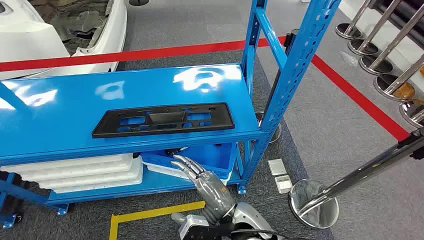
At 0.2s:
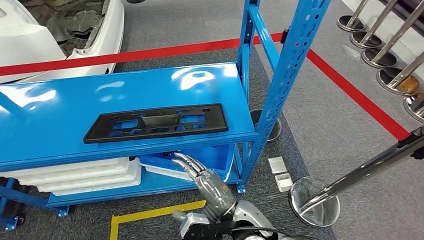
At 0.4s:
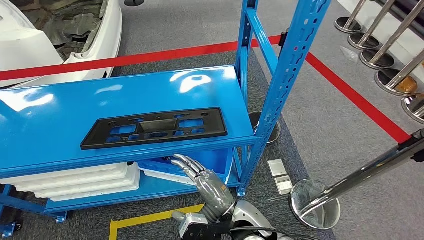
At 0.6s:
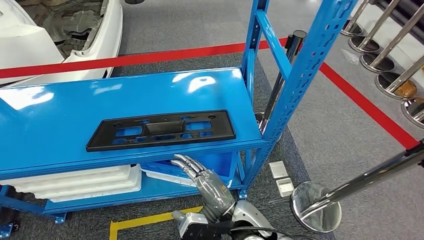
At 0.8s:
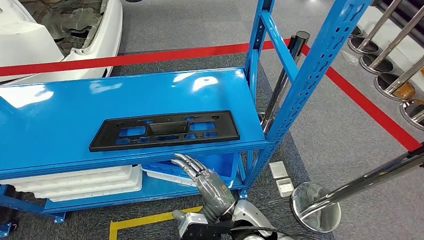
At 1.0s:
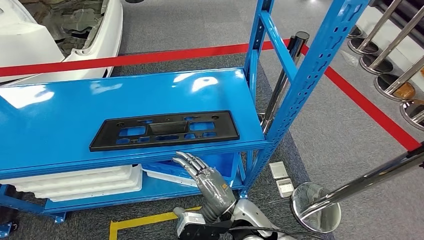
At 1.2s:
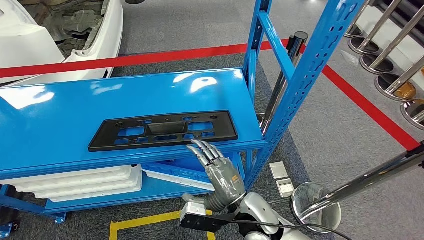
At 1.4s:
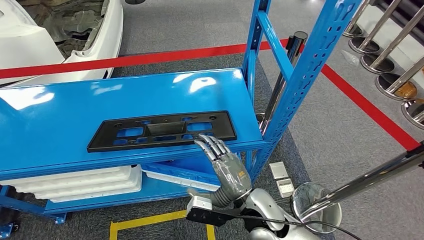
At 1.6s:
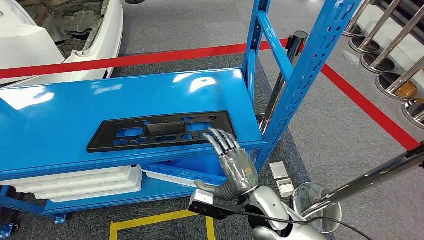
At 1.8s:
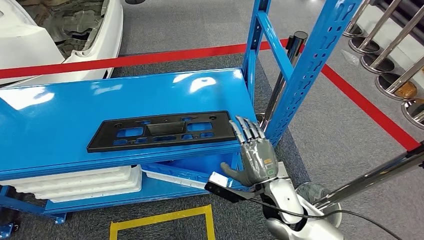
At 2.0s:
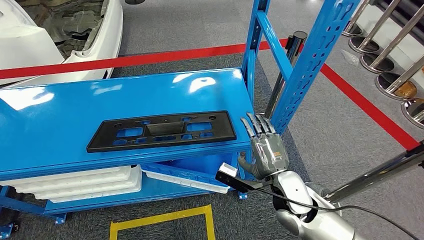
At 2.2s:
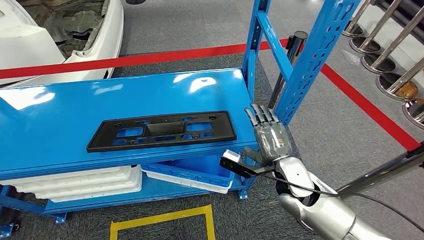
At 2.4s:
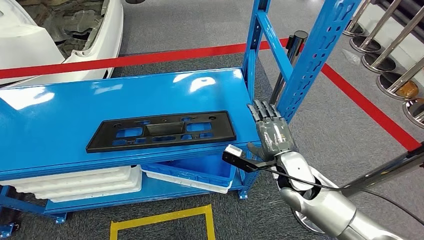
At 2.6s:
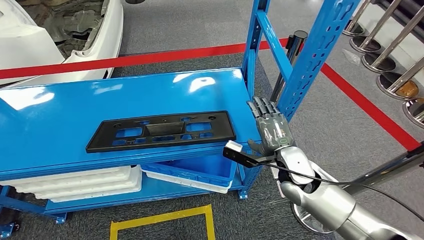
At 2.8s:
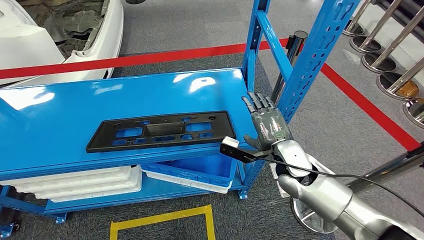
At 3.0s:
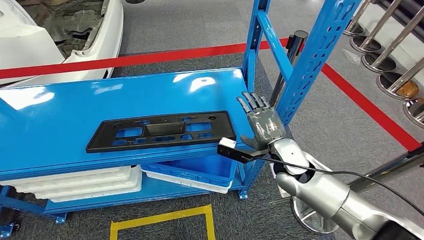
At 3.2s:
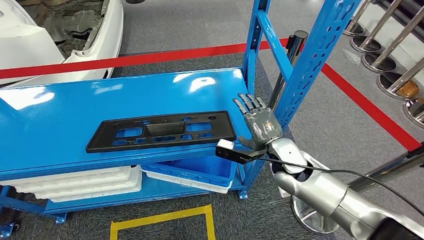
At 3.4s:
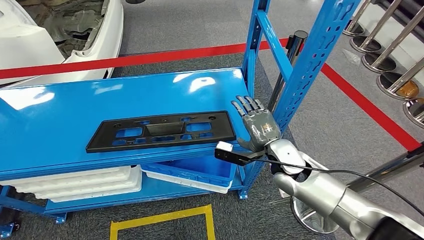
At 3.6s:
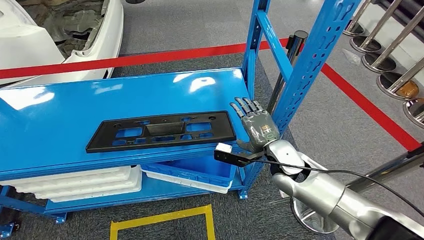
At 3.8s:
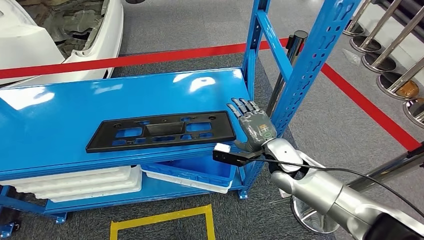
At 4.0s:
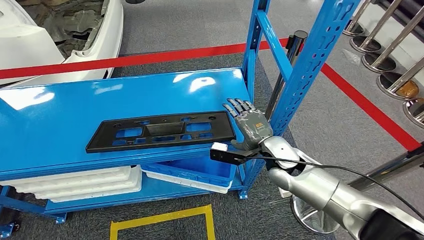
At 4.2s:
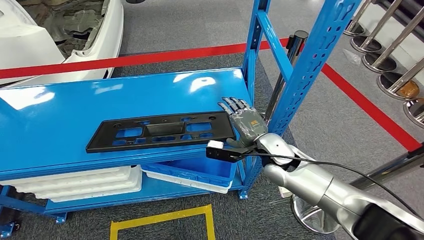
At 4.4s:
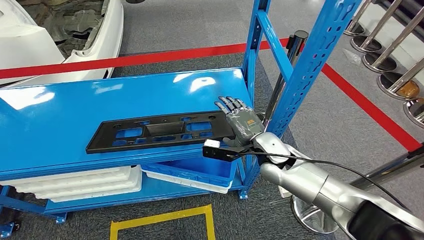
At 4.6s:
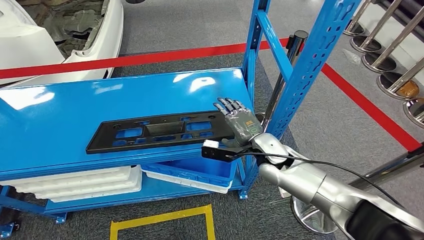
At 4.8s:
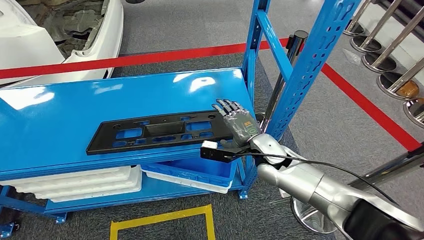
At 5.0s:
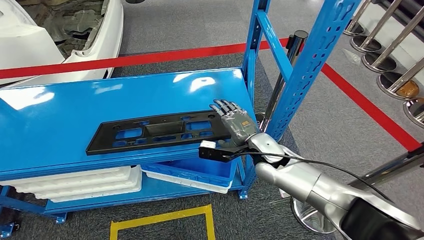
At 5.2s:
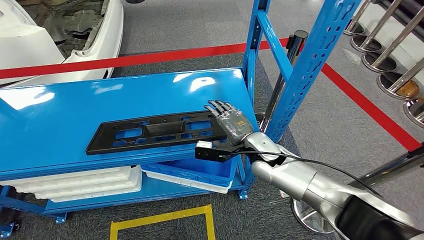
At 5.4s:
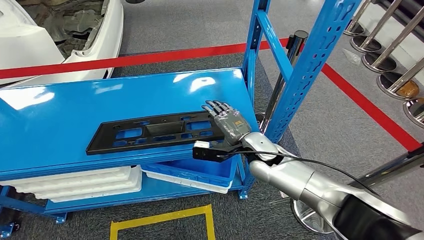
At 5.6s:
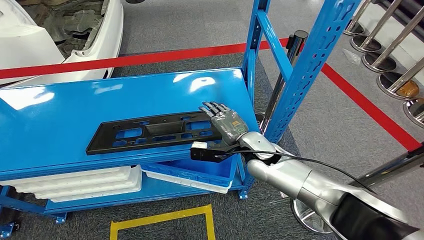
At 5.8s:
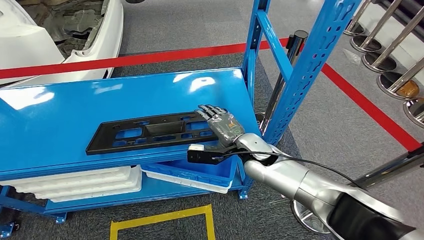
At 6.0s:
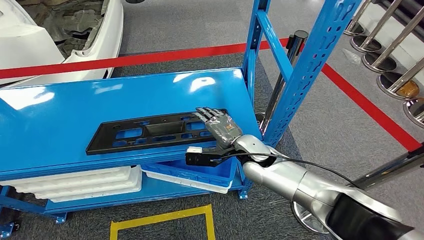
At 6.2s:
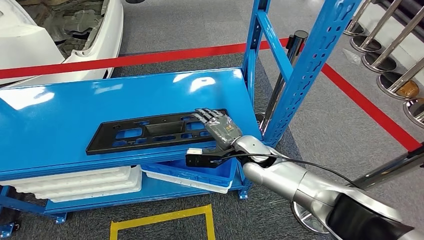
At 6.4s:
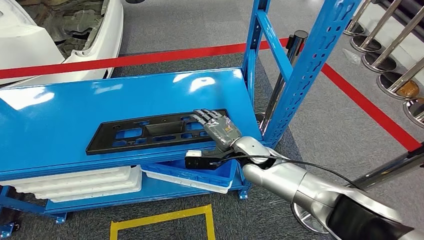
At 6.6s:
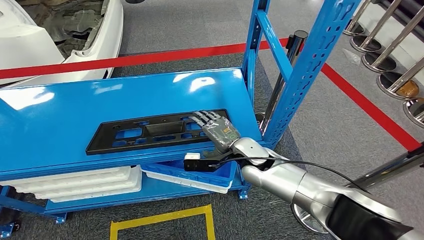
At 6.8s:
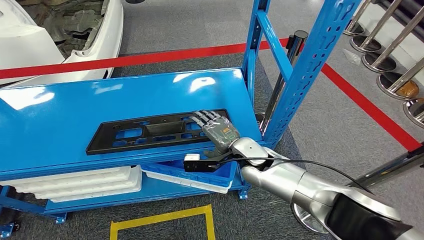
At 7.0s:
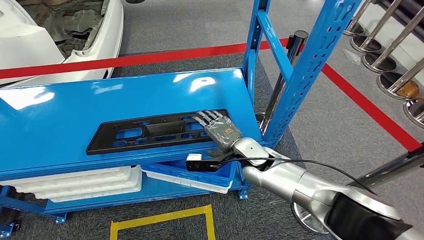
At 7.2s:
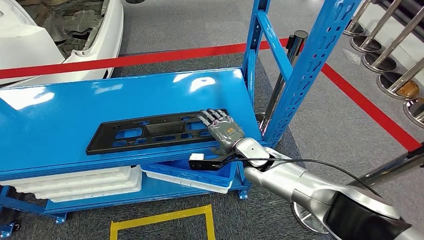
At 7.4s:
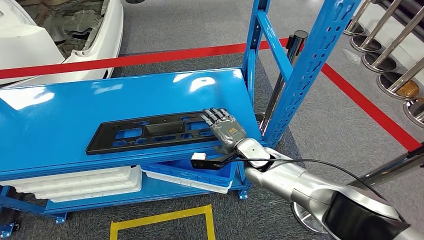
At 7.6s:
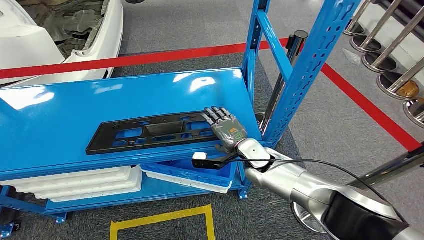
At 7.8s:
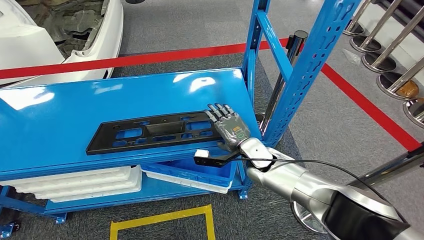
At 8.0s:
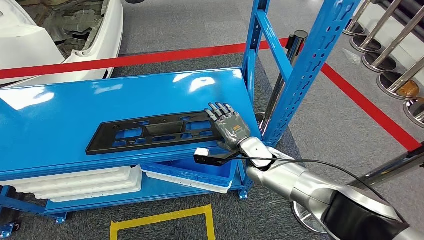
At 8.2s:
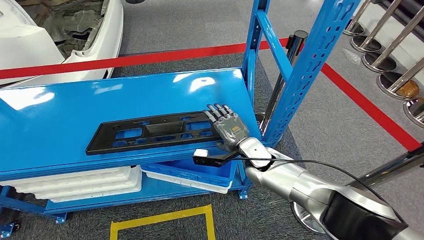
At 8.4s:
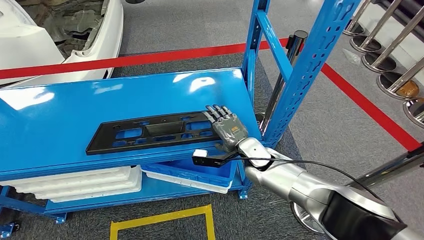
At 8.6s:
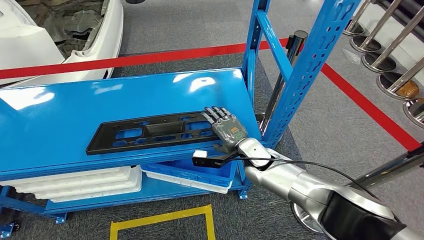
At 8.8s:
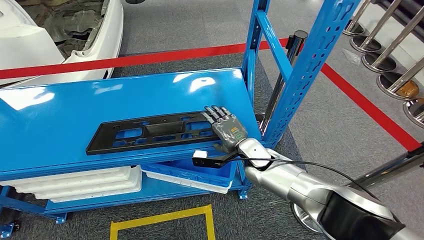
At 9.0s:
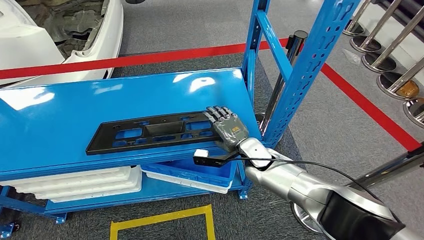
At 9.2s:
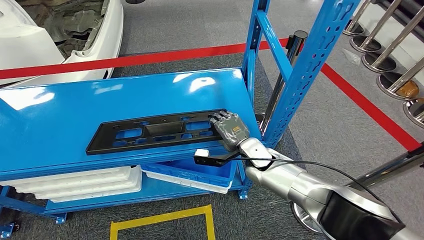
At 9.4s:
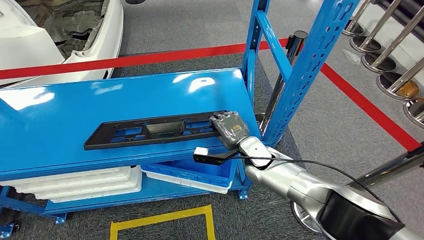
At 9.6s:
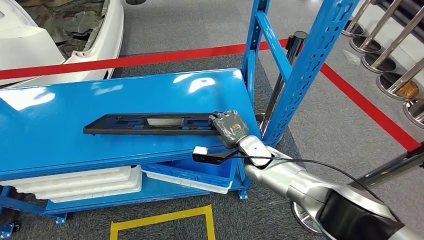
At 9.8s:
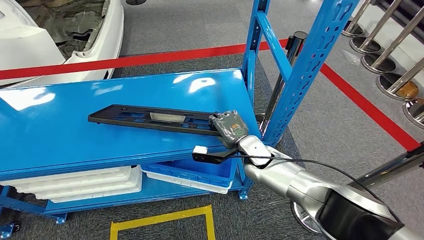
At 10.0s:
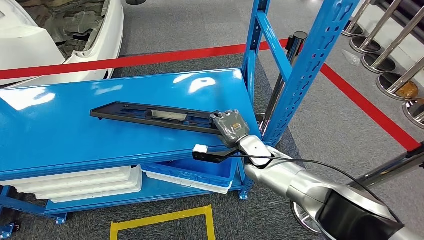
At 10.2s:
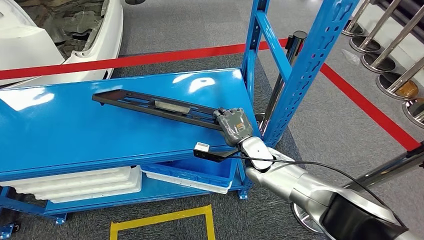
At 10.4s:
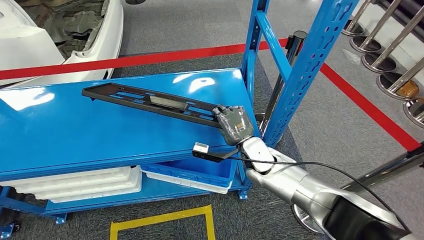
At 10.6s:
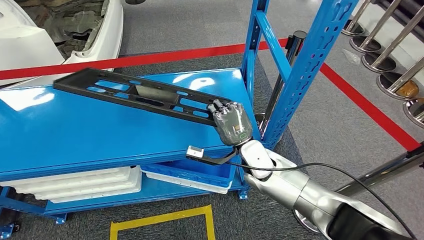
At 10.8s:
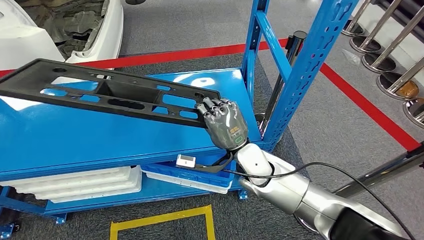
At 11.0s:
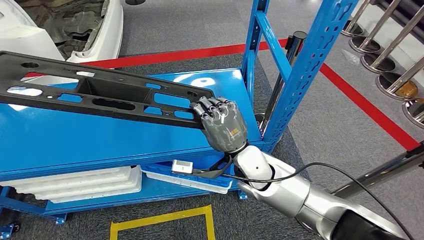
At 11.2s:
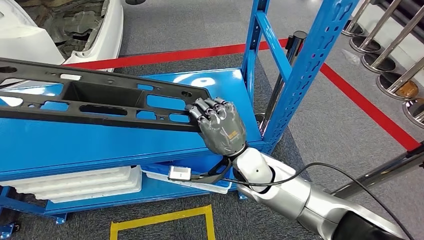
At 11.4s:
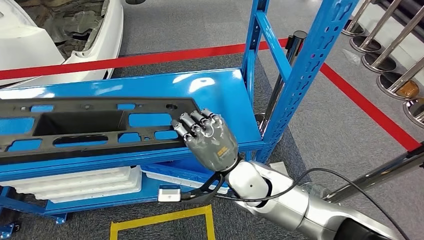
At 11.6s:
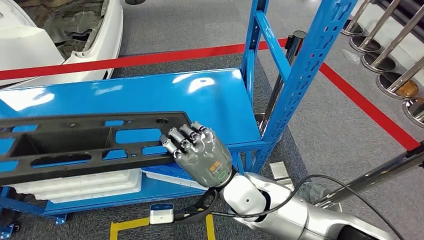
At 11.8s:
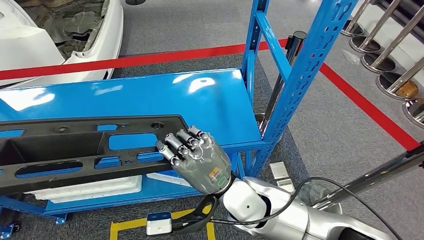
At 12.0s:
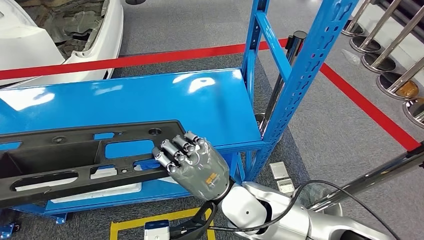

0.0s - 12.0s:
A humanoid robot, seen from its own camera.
1.6s - 3.0s: The right hand shifts about 10 cm forward and to the right.
3.0s - 4.4s: The right hand ends up roughly 5 cm from where it was.
4.4s - 6.0s: The right hand moves some 5 cm.
6.0s - 7.6s: The hands make only small movements.
7.6s - 9.0s: Neither hand changes place.
9.0s - 10.4s: There are only small adjustments of the hands.

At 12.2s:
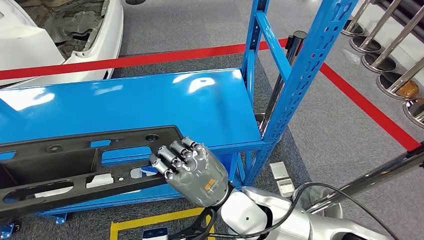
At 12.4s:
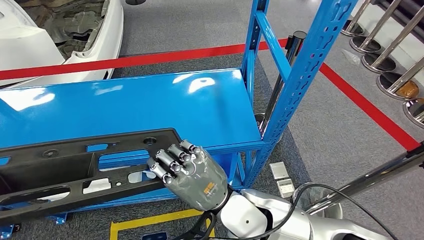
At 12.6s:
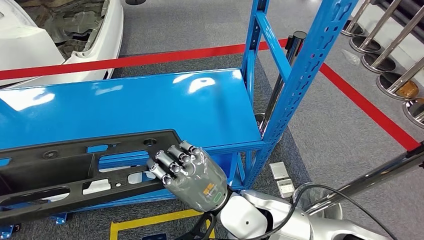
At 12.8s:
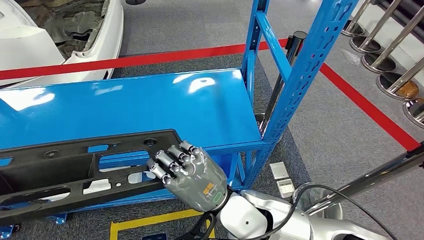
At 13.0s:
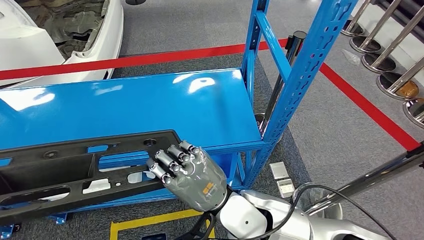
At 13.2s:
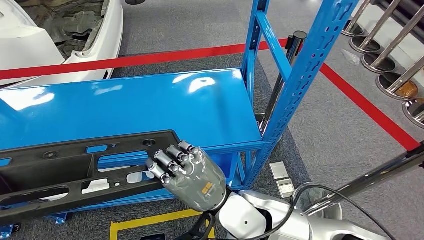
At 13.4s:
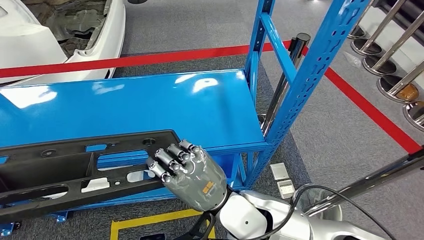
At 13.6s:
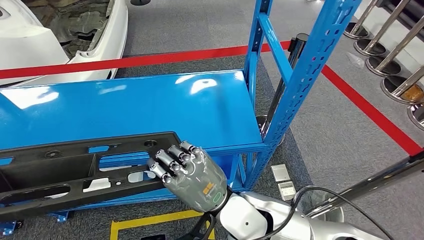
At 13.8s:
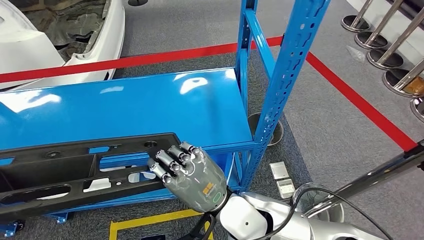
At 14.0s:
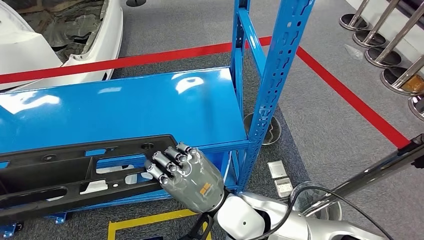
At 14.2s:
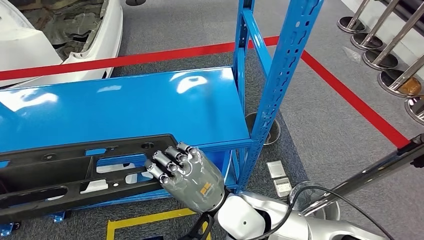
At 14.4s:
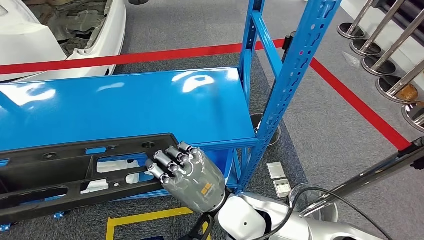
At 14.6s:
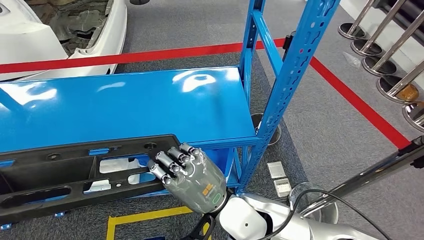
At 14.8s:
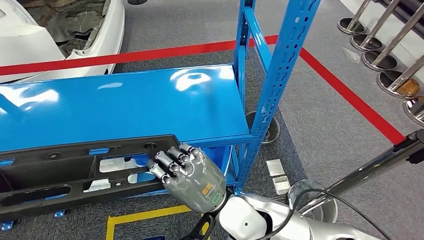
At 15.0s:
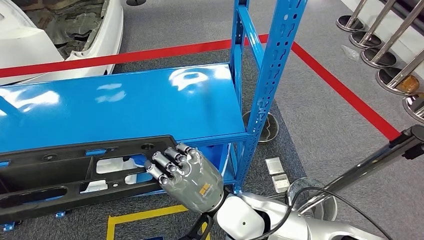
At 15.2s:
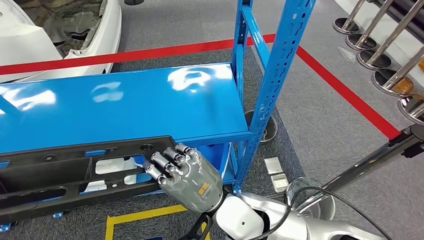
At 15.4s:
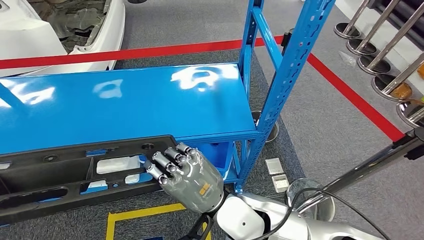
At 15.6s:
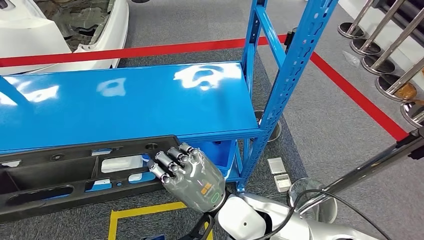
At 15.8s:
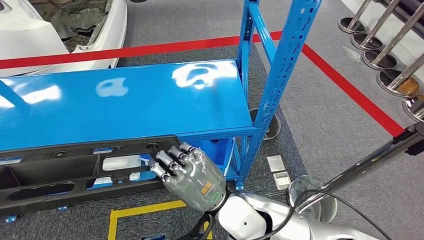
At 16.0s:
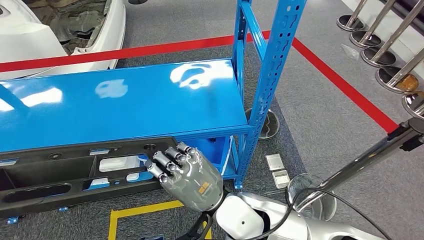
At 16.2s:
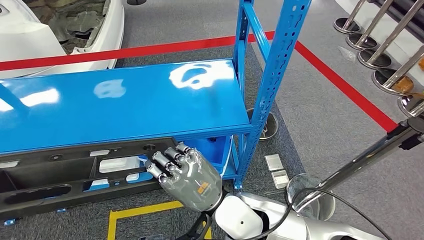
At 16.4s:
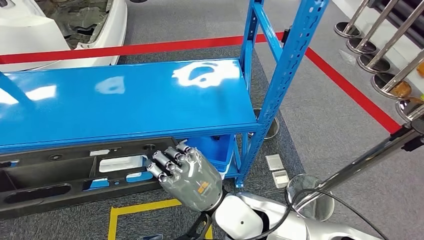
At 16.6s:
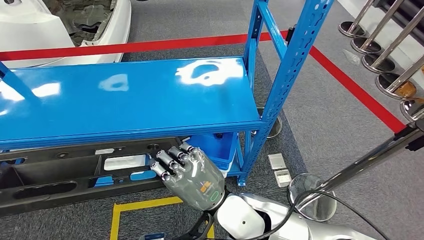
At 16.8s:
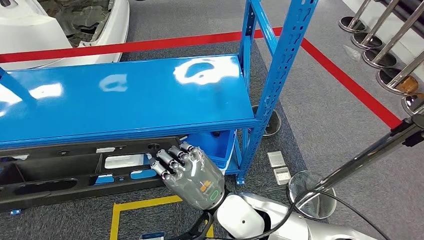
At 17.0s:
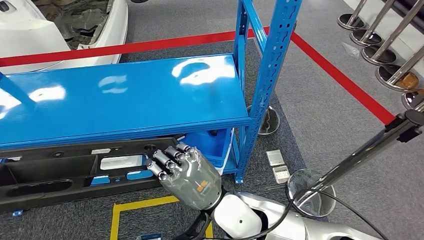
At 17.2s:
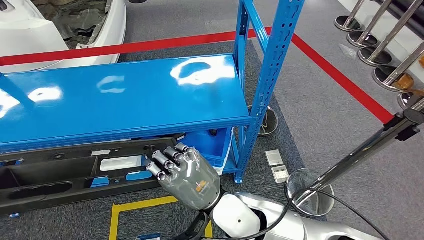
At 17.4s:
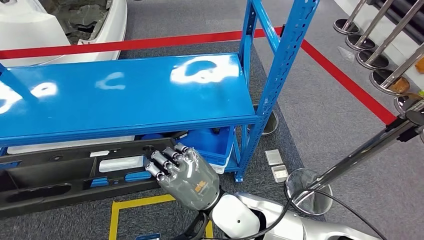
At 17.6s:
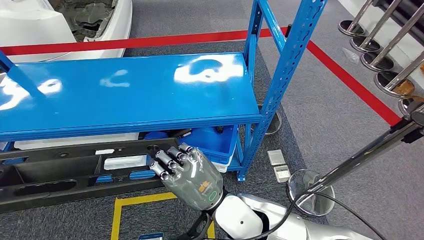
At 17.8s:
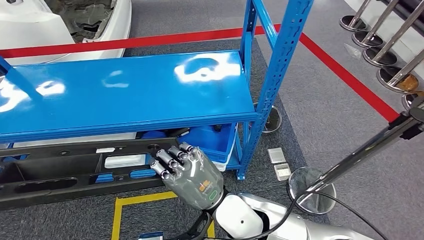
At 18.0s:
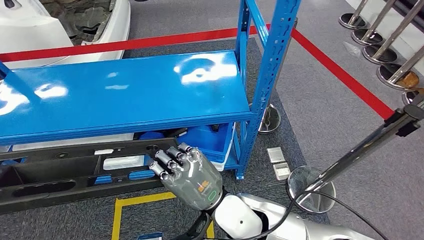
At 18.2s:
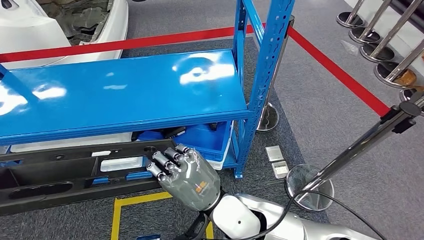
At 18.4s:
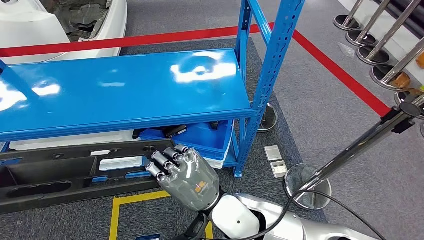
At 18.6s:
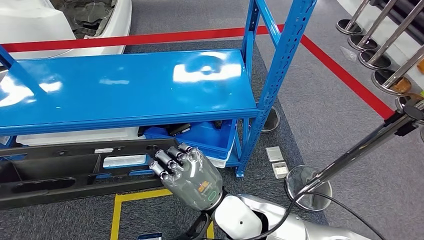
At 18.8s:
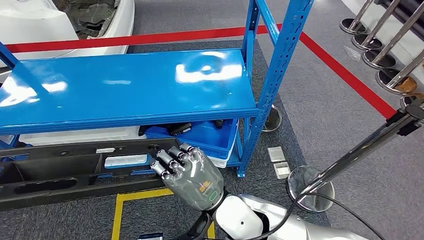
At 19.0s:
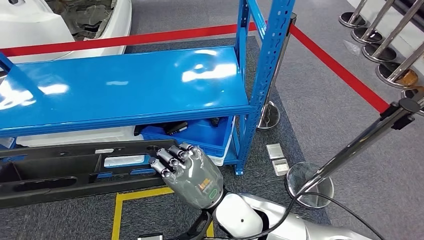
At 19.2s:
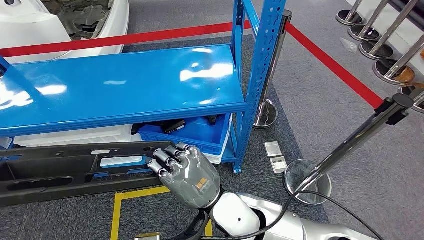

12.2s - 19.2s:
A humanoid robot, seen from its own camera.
Step, 12.2s - 16.8s: Pick up the large material from the shelf.
